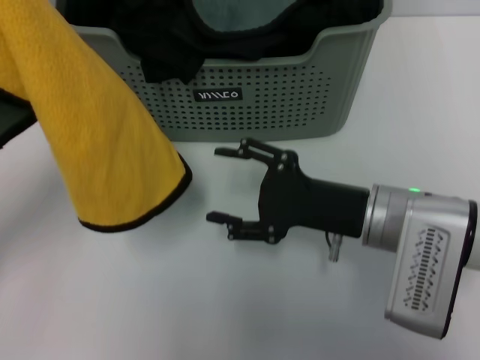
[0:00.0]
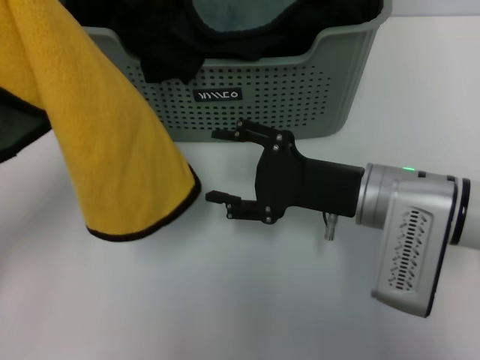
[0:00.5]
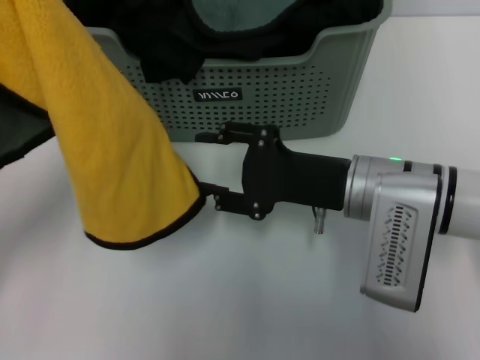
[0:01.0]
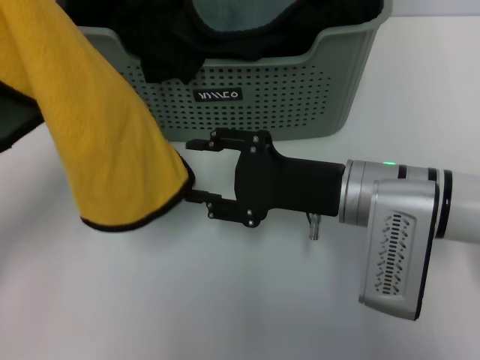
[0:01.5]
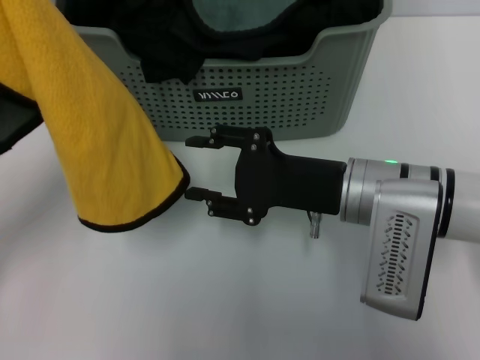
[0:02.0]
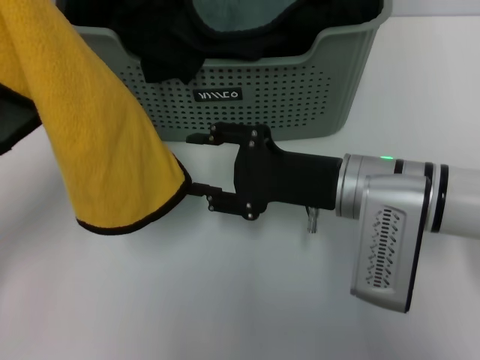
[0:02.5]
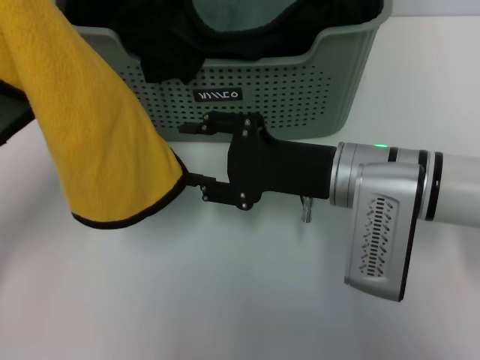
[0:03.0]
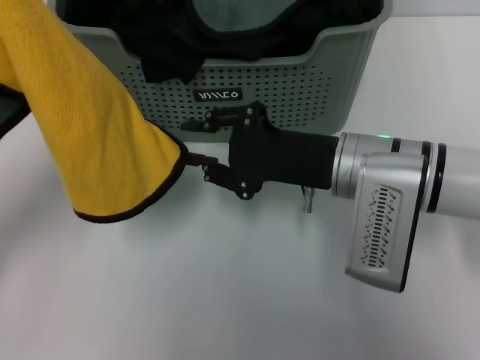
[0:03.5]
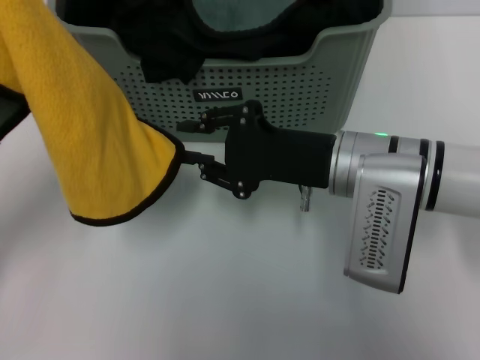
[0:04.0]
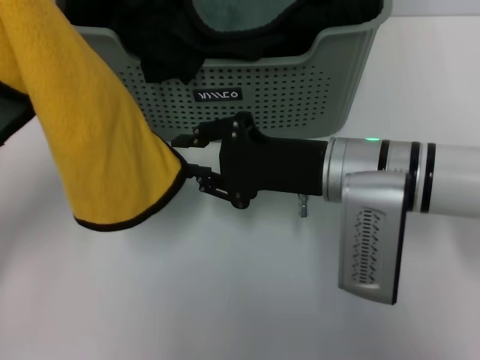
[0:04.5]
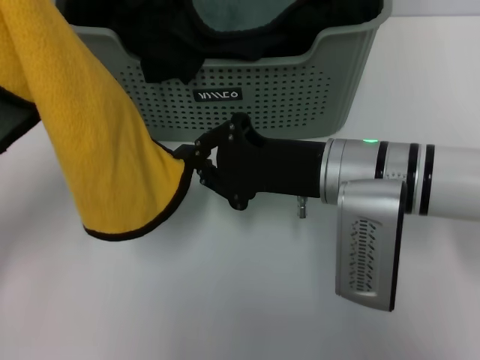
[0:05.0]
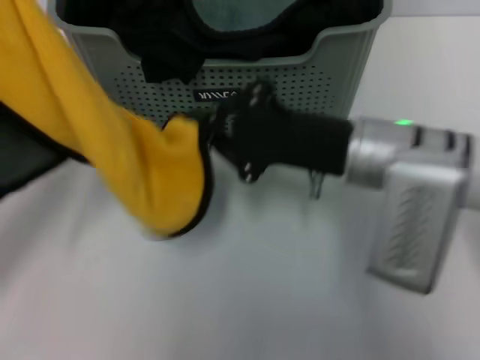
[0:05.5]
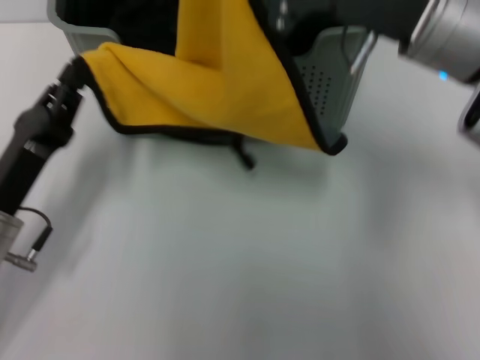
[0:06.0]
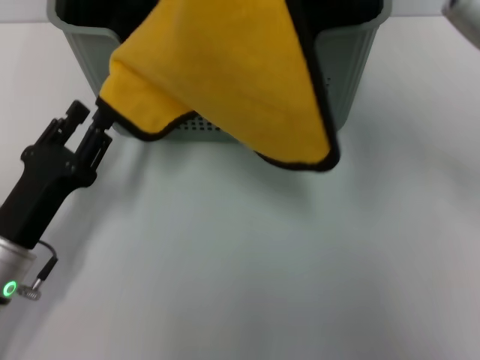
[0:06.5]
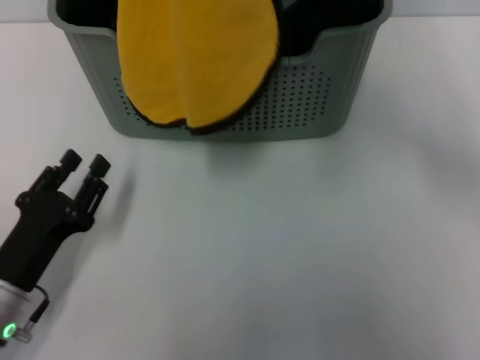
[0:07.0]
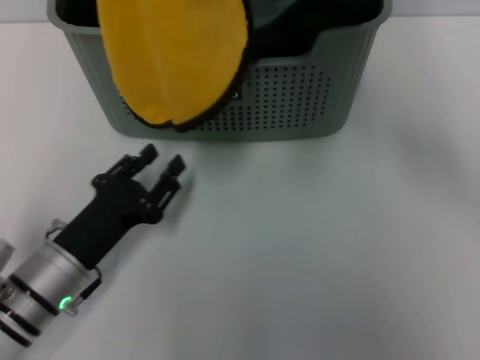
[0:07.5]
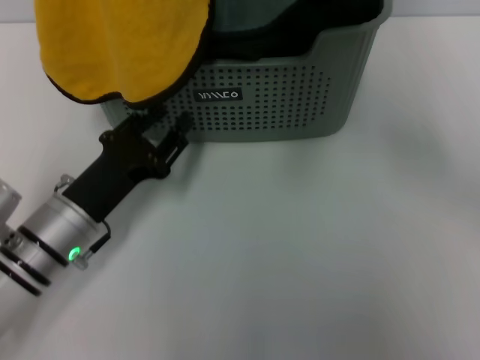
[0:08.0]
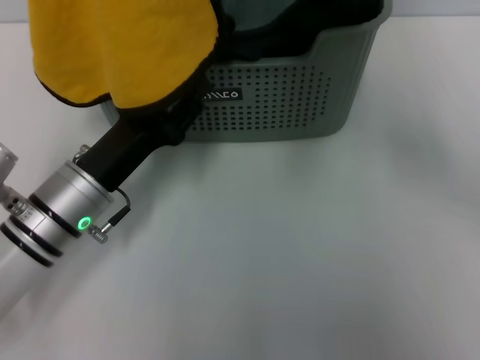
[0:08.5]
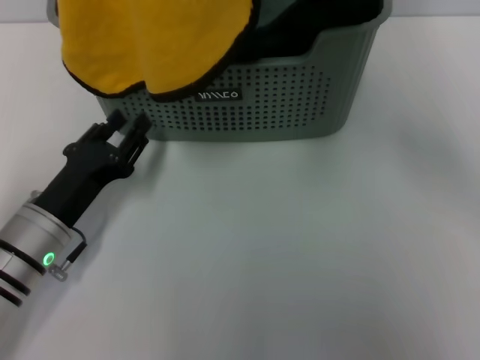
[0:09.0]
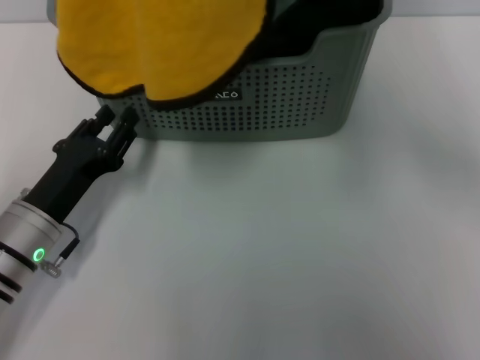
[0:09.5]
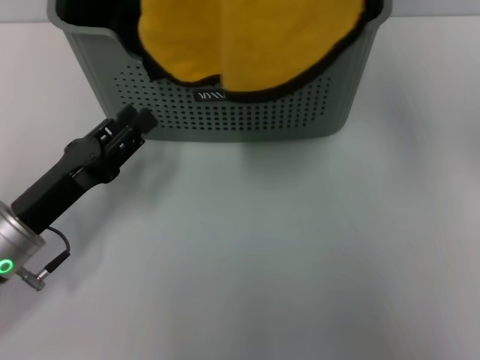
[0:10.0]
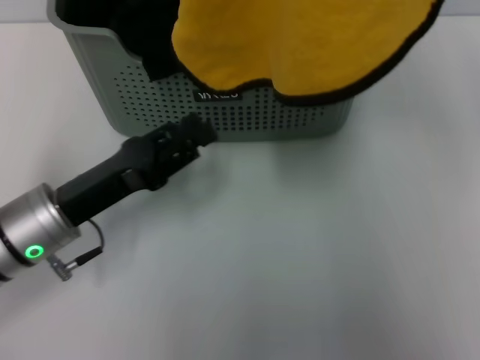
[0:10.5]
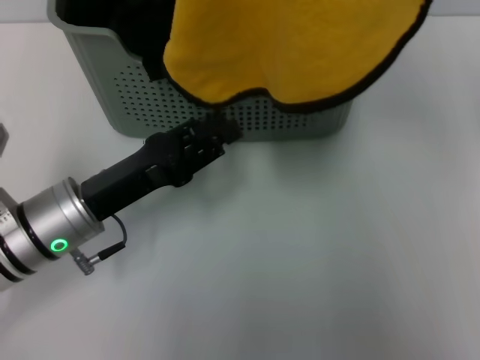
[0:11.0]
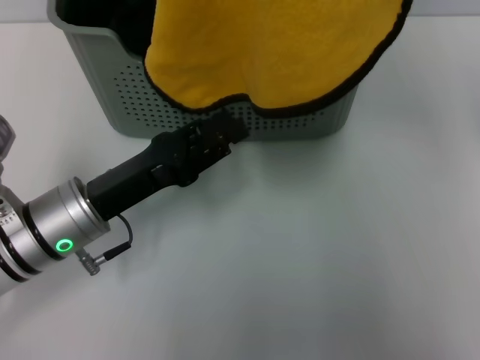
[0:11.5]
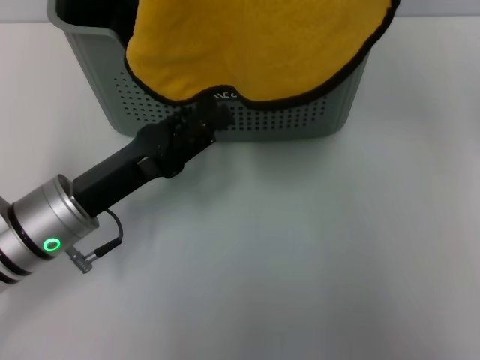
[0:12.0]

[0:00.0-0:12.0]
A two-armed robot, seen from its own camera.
Task of the whole recording: pick up the towel from the storage box and lay it flat on the table.
0:00.0 to 0:04.0: The grippers stay close to where they were, moving slightly.
0:04.0 to 0:06.0: The right gripper goes roughly 10 cm upward, and closes. The left gripper is displaced downward by about 10 cm.
0:06.0 to 0:08.0: The right gripper travels upward and to the left by roughly 15 cm. Meanwhile the left gripper ends up roughly 5 cm from where it was, and opens.
0:08.0 to 0:10.0: The left gripper shifts by approximately 5 cm. The right gripper heads to the right, covering about 10 cm.
0:10.0 to 0:12.0: The left gripper shifts by roughly 5 cm.

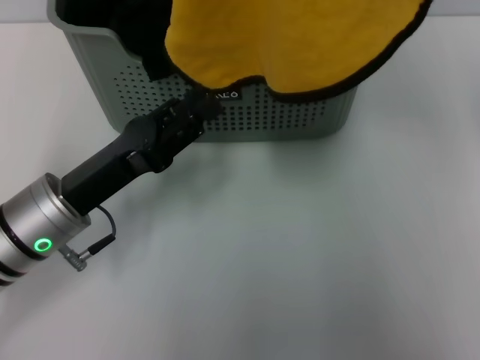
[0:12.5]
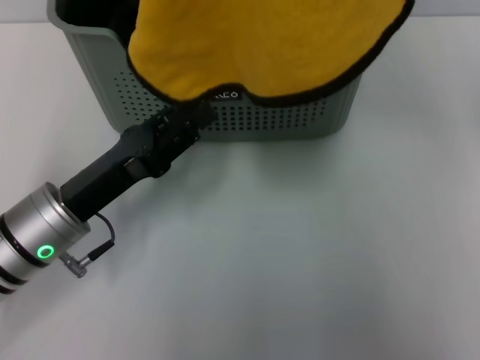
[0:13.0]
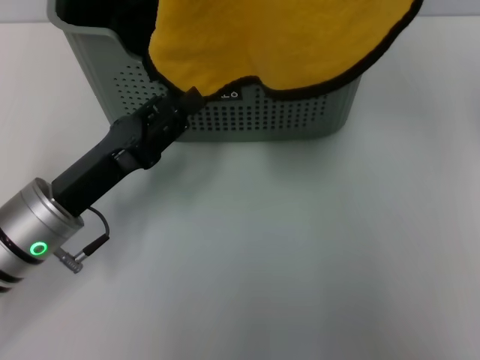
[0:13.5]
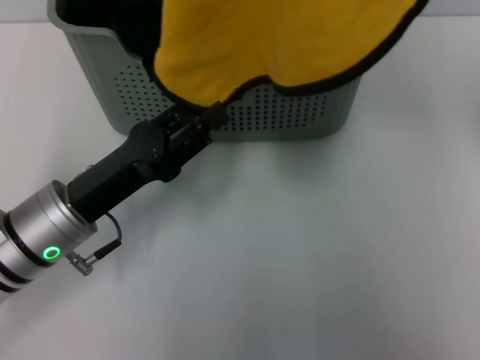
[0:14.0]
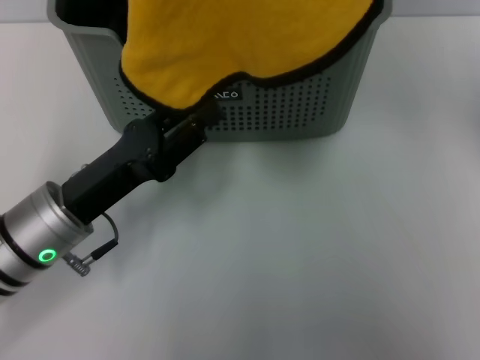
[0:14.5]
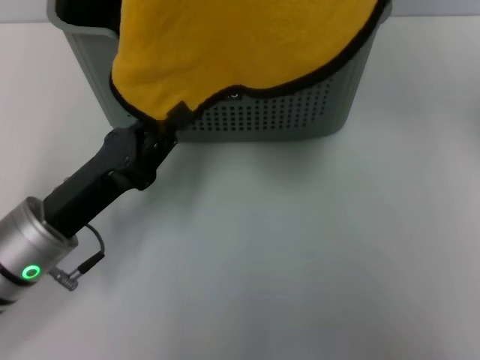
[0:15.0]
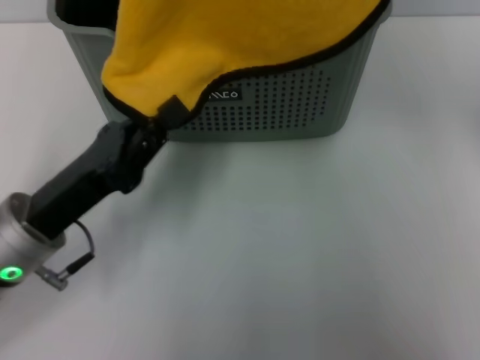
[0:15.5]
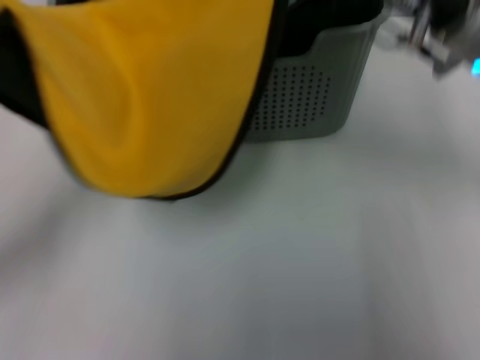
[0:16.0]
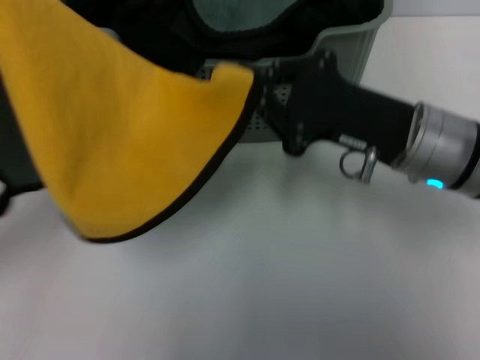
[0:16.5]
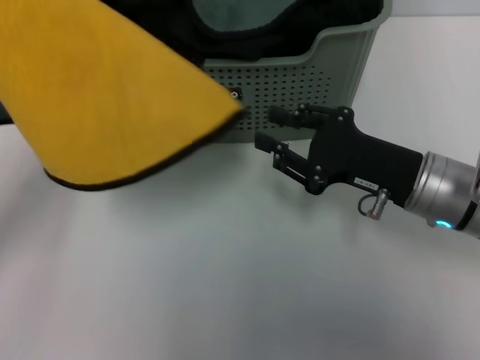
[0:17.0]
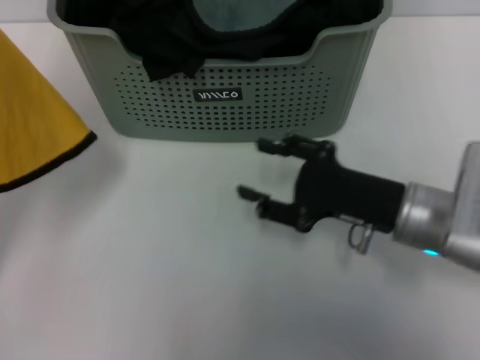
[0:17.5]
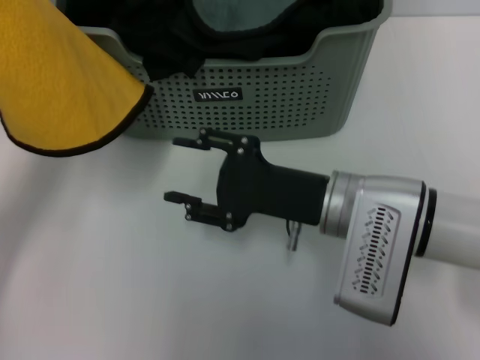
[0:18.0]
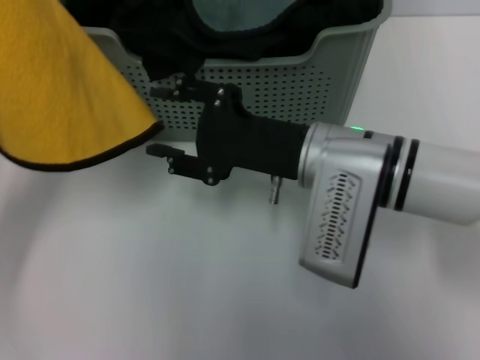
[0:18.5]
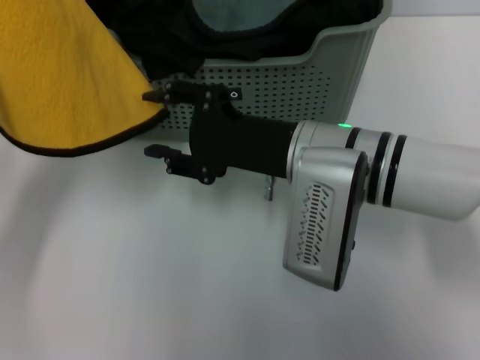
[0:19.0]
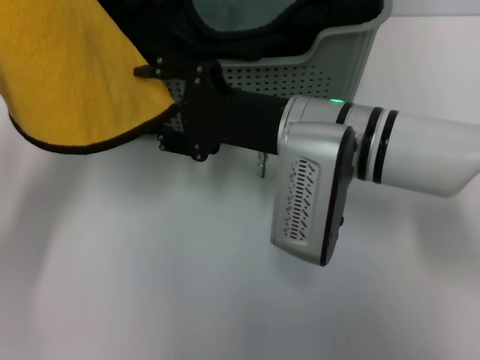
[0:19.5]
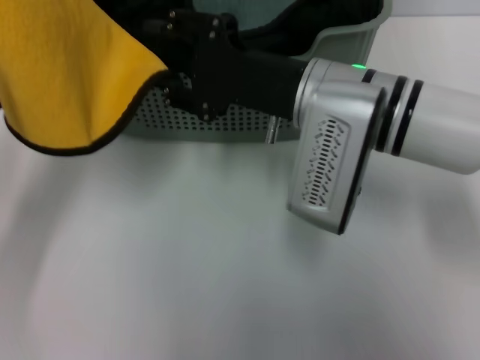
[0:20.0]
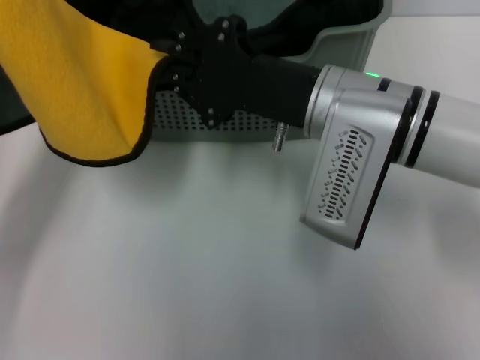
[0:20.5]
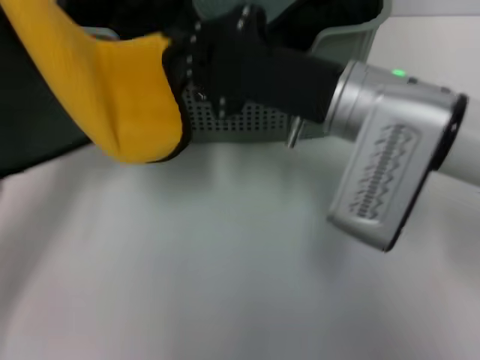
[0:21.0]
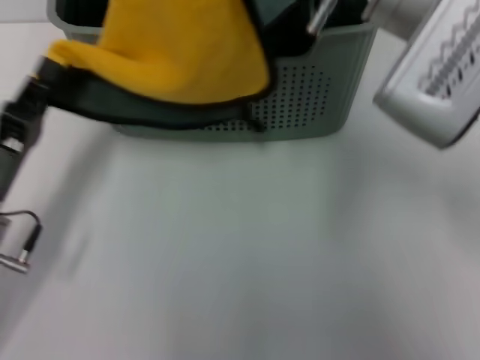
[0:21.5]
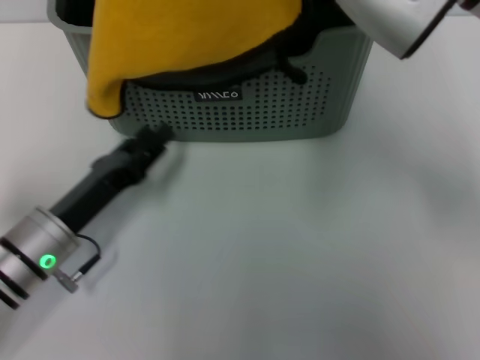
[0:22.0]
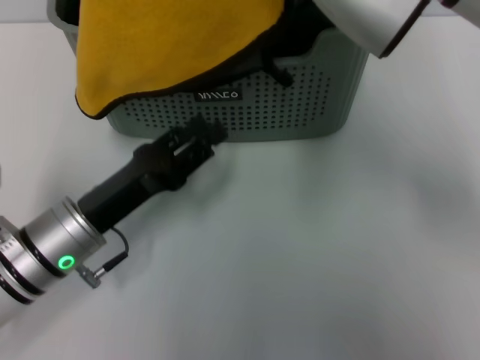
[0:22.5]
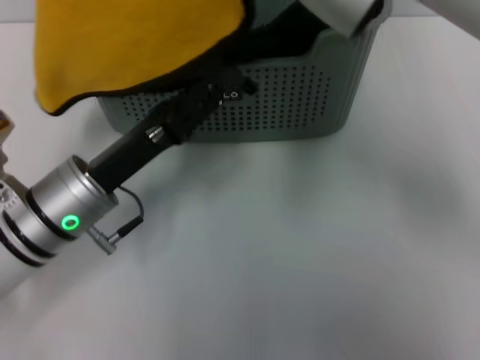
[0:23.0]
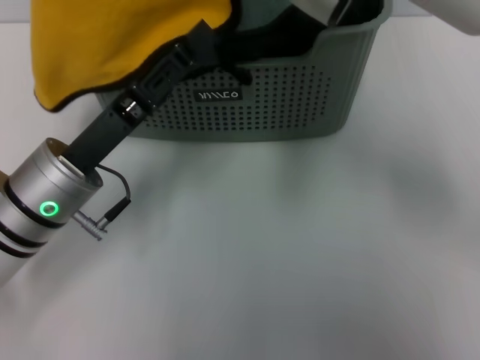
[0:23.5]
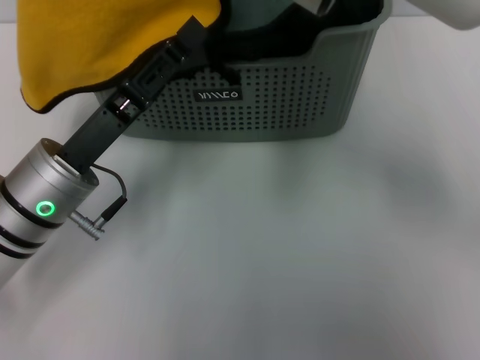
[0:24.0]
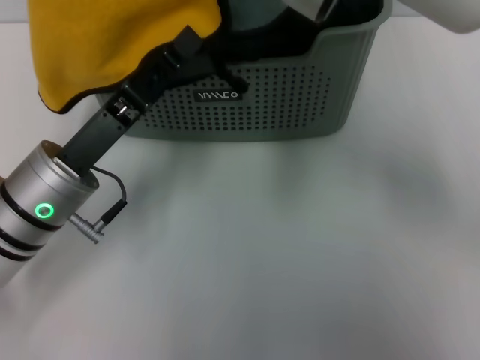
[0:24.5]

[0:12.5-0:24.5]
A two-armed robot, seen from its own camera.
Task of the whole recording: pick up the towel from the storage box and lay it flat on the table.
Step, 0:12.5 to 0:20.5: Spread the towel flat with the left gripper.
0:12.5 to 0:14.5: The grippers move only a little.
0:14.5 to 0:16.5: The right gripper heads downward, covering some 25 cm, while the left gripper shifts roughly 10 cm upward and to the left, and closes.
0:16.5 to 0:18.5: The left gripper shifts by roughly 5 cm. Meanwhile the right gripper is displaced to the left by roughly 10 cm, and opens up.
0:18.5 to 0:20.5: The right gripper closes its fingers.
0:20.5 to 0:22.5: The left gripper travels downward and to the right by approximately 10 cm, and opens; the right gripper is displaced upward by some 15 cm.
0:22.5 to 0:24.5: The left gripper closes up.

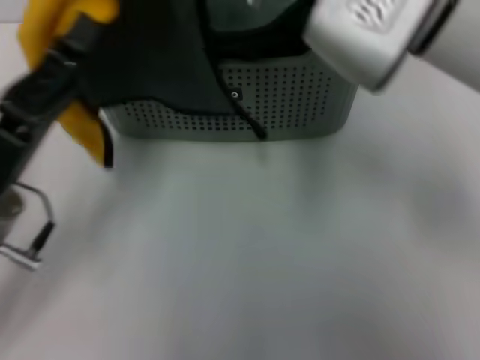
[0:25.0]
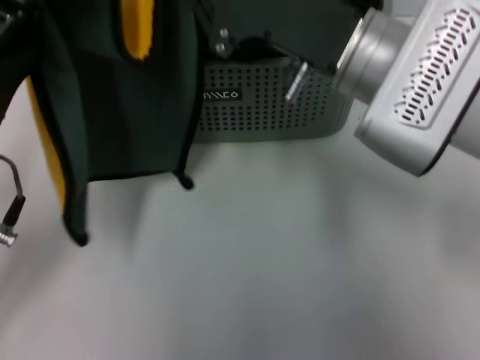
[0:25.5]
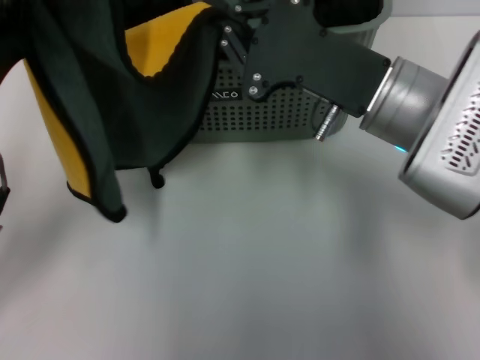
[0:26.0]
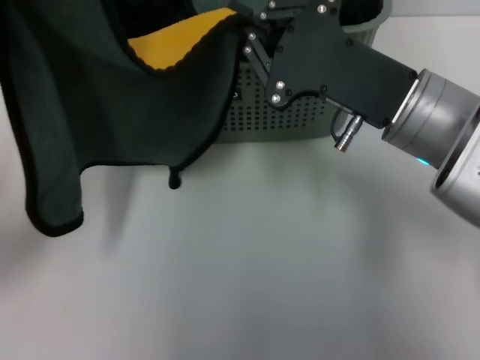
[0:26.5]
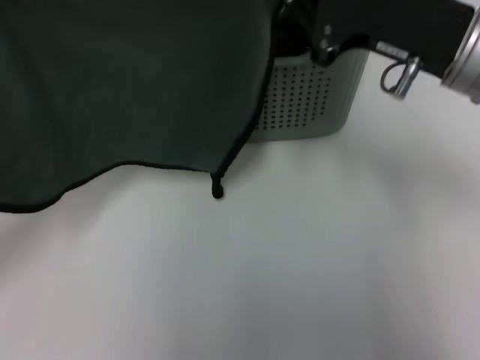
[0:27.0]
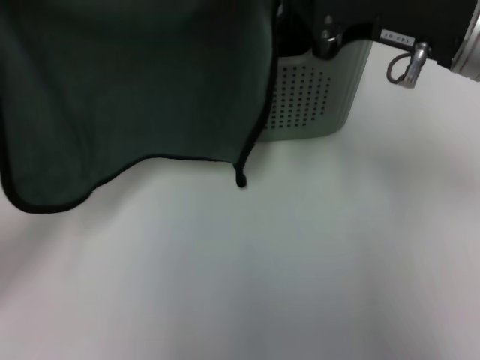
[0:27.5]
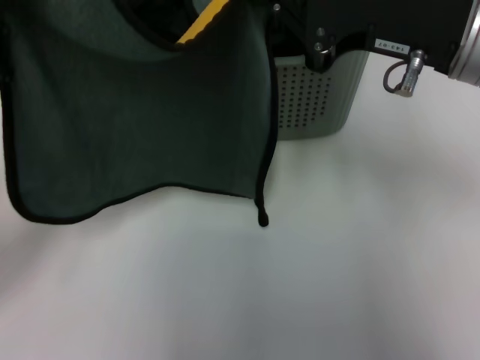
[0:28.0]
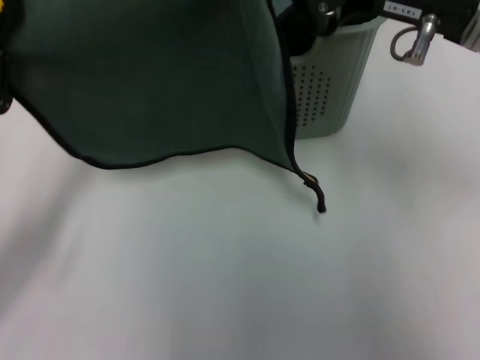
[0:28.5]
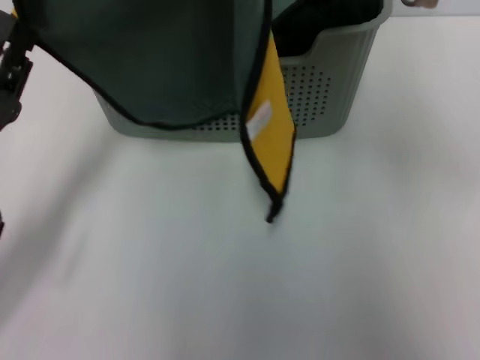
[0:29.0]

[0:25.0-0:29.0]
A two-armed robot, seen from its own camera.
Task of the whole recording: pick up the towel from the storage box and lay it flat on the table.
0:25.0 to 0:27.0: The left gripper shifts by some 5 cm. The right gripper travels to the right by approximately 10 cm.
0:27.0 to 0:29.0: The right gripper travels upward by approximately 10 cm. Meanwhile the left gripper shifts some 5 cm downward.
